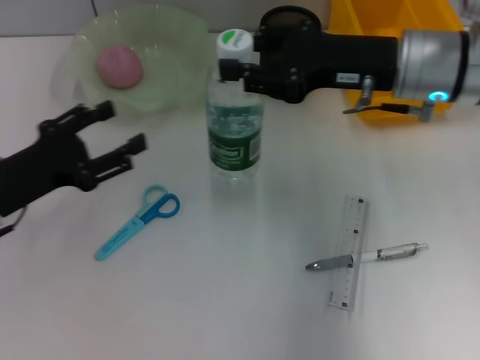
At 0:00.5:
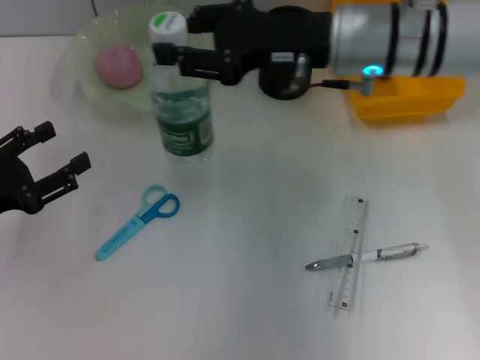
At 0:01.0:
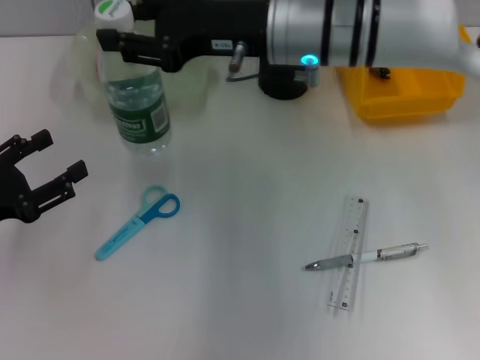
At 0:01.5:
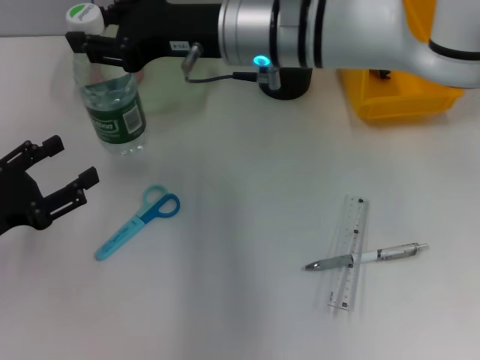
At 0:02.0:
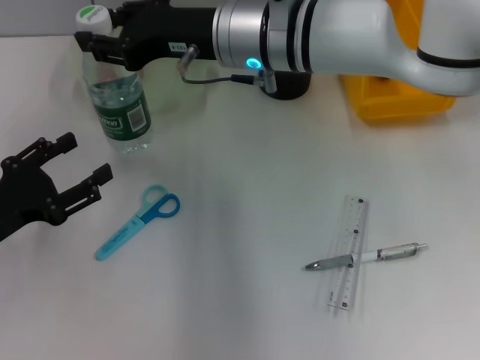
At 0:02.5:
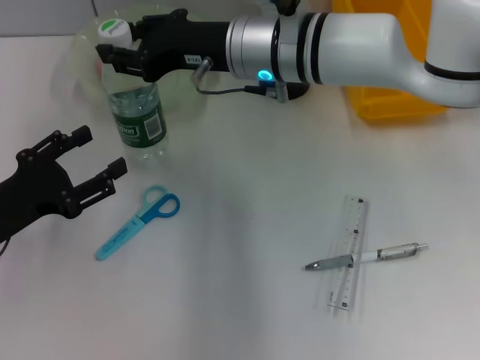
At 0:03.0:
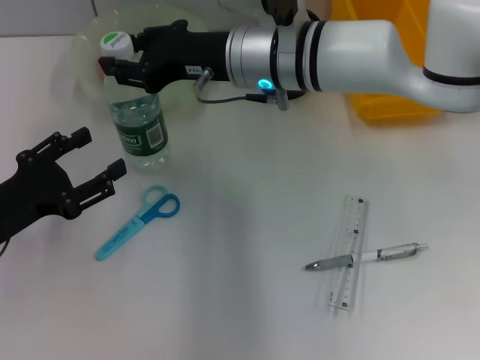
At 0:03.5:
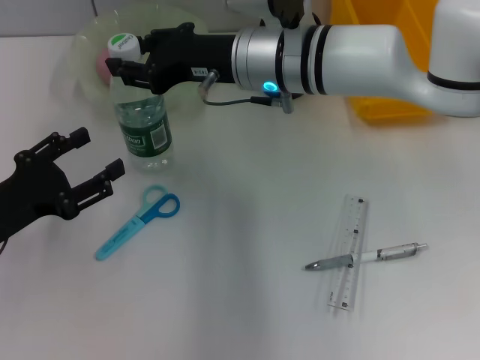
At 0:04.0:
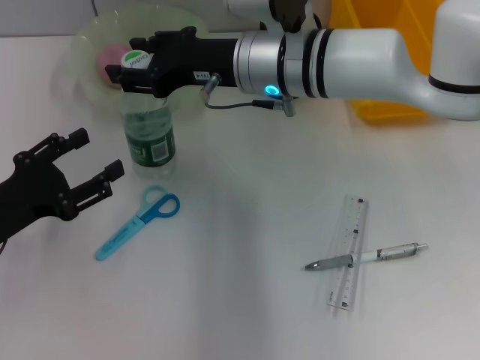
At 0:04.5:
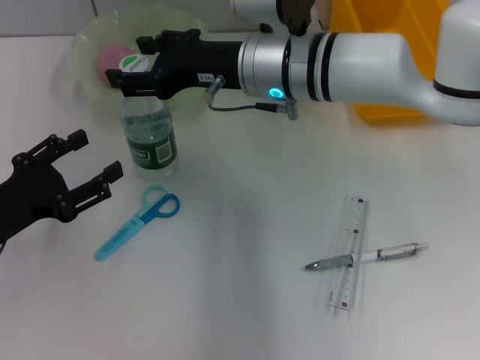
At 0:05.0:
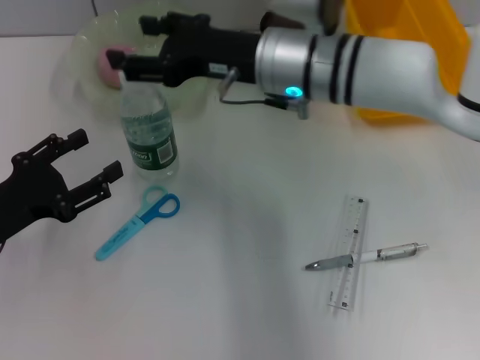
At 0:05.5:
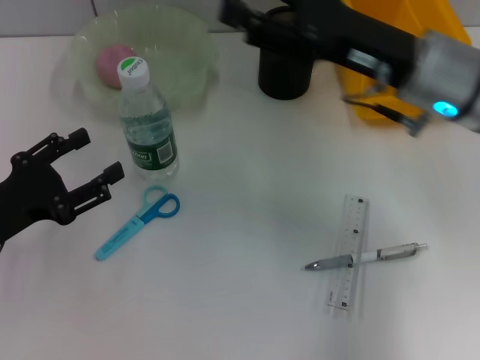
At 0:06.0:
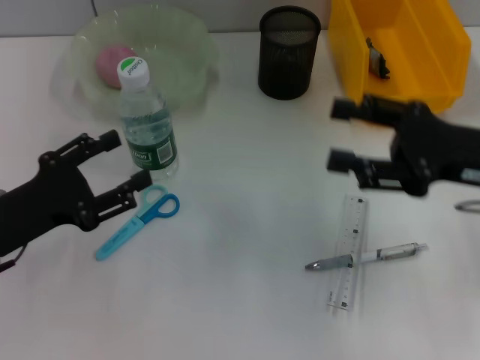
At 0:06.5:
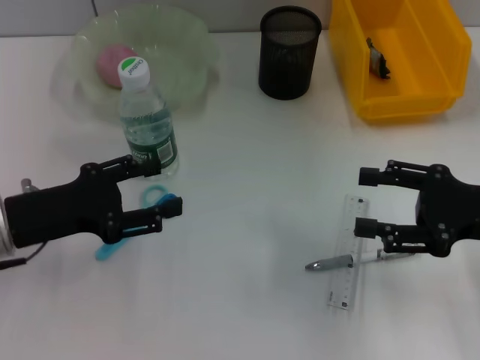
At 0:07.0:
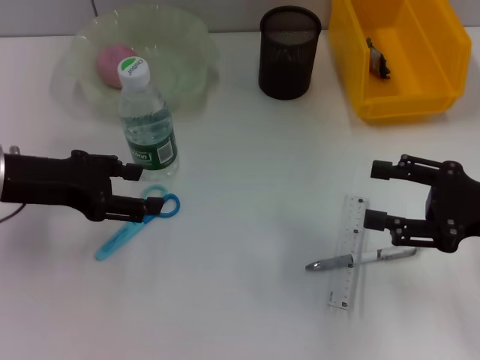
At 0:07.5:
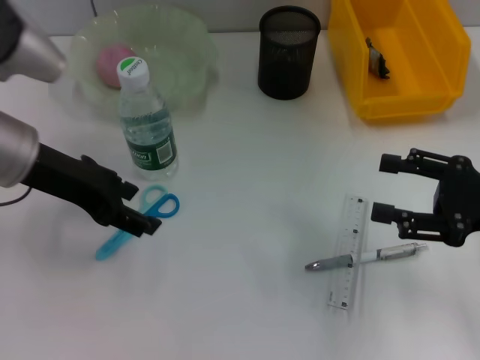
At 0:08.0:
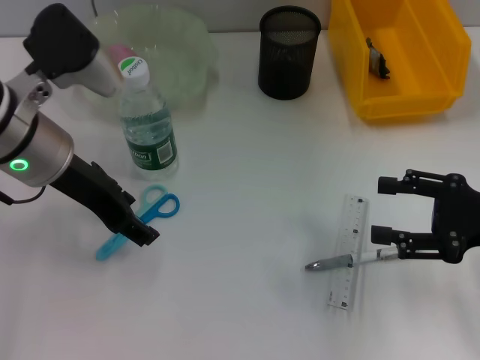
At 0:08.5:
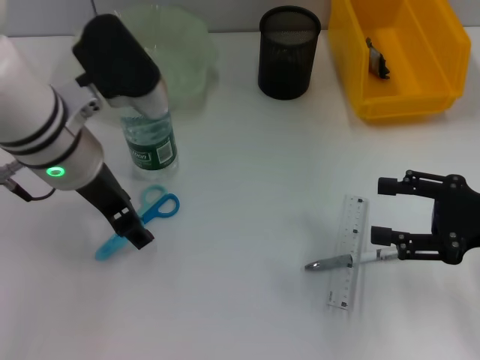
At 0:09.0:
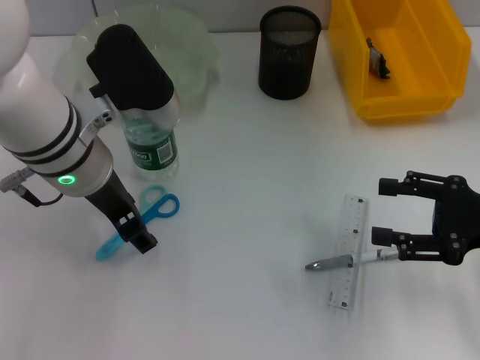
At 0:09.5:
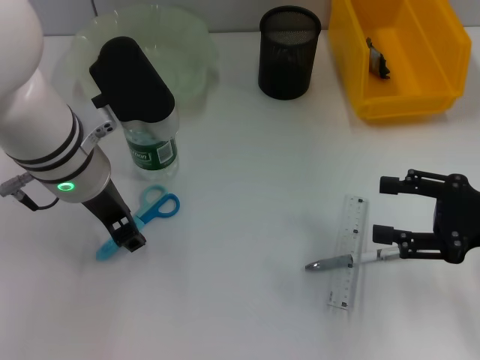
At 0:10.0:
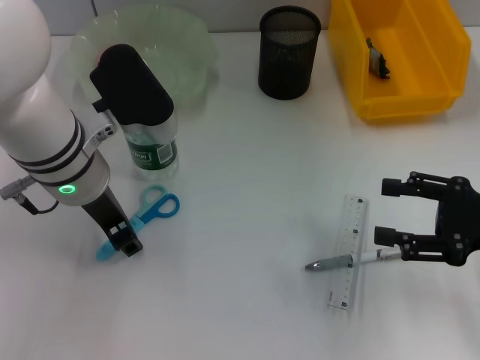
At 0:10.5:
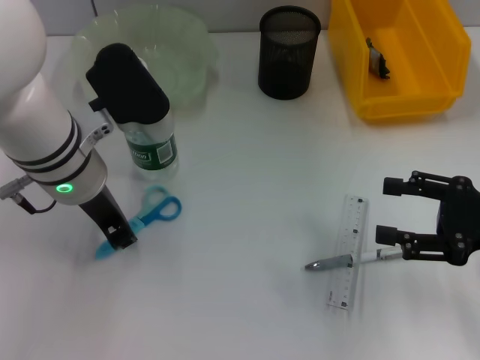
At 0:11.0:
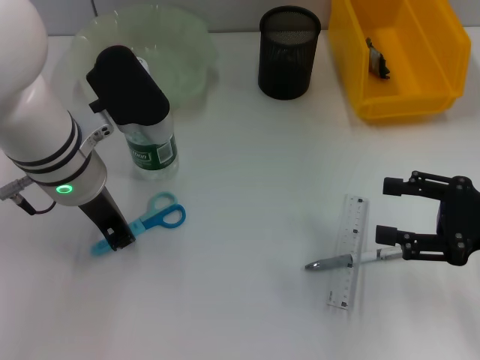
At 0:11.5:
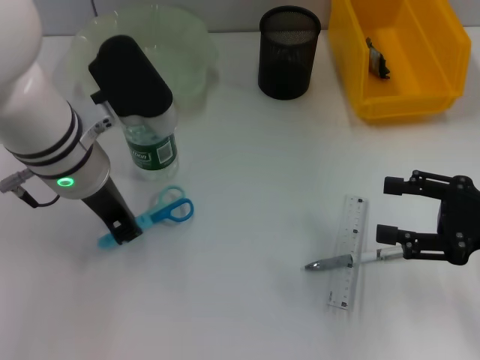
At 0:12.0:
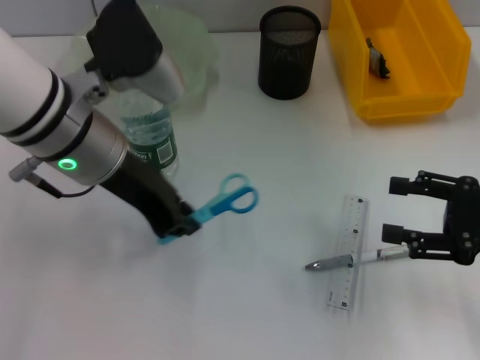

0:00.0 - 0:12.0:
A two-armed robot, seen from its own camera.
Step, 0:00.0 - 0:04.5: Place the water bottle on the table with the right hand.
Step, 0:05.0 - 0:11.0: Grab the blue scissors with the left hand.
0:00.0 - 0:02.0: The left gripper changes place by about 5 cm; the right gripper heads to the left, covering roughly 15 cm.
0:04.0 - 0:06.0: The right gripper moves to the right and backward, approximately 25 cm, and opens up.
0:06.0 - 0:08.0: The left gripper goes approximately 15 cm upward, forward and to the right. The right gripper ends up some 5 cm from where it was.
0:08.0 - 0:10.0: The grippers make only small movements.
0:10.0 - 0:12.0: The left gripper closes.

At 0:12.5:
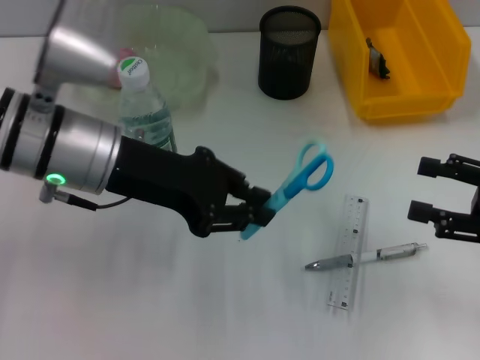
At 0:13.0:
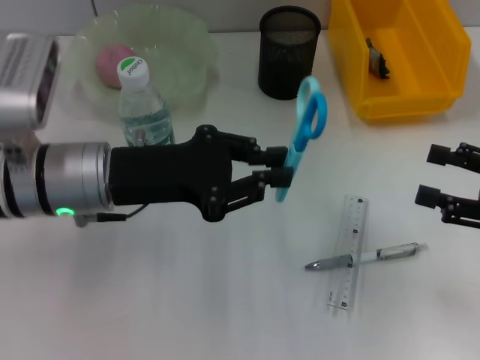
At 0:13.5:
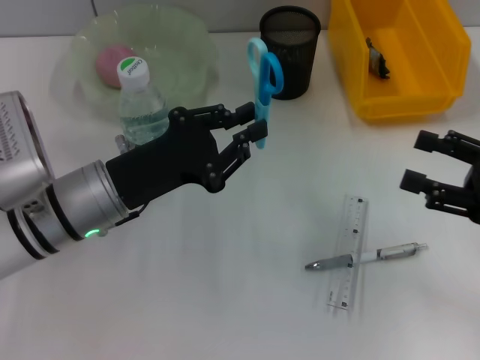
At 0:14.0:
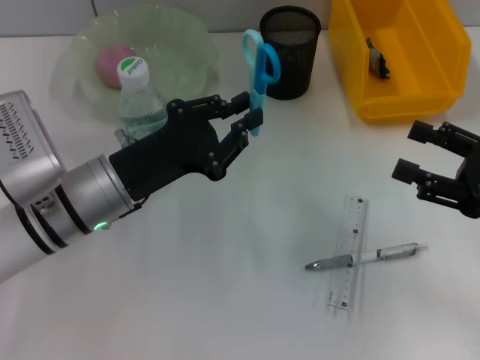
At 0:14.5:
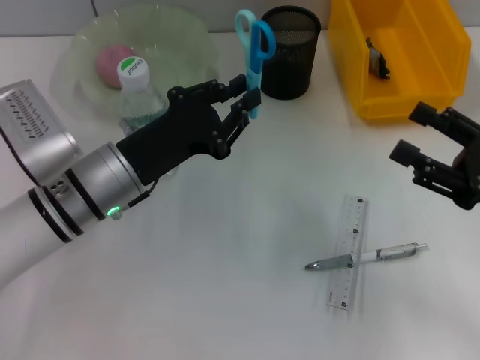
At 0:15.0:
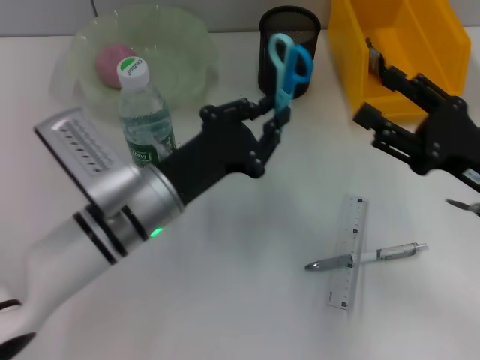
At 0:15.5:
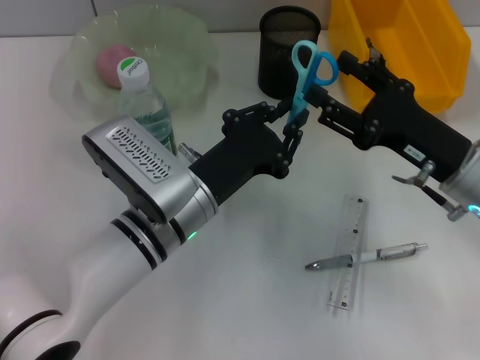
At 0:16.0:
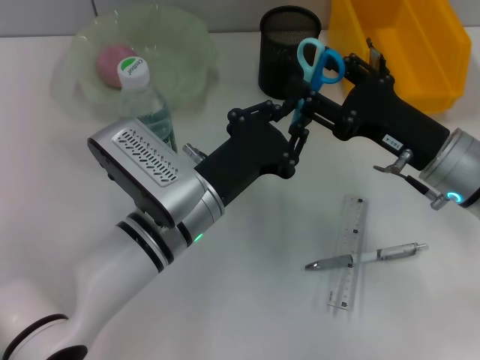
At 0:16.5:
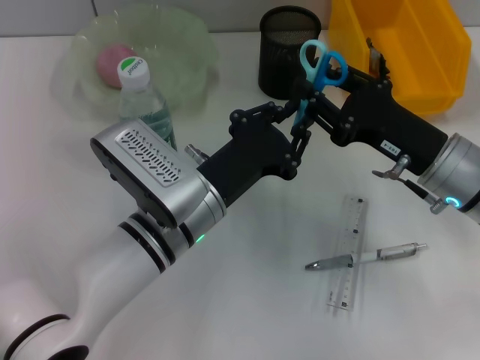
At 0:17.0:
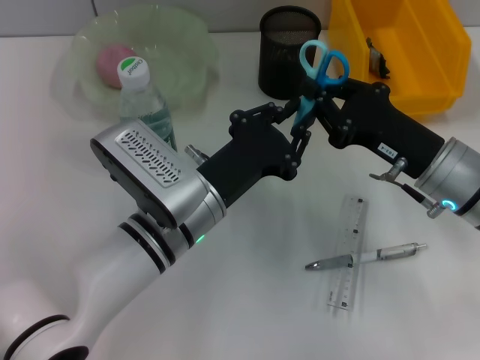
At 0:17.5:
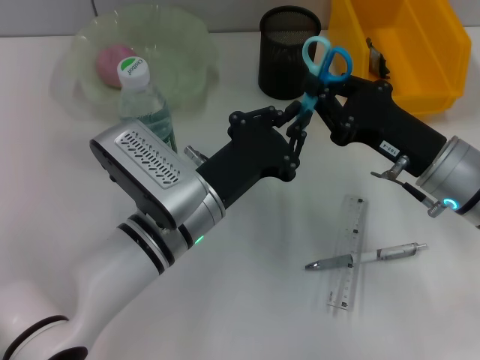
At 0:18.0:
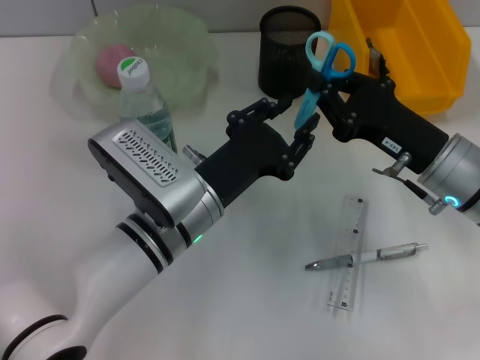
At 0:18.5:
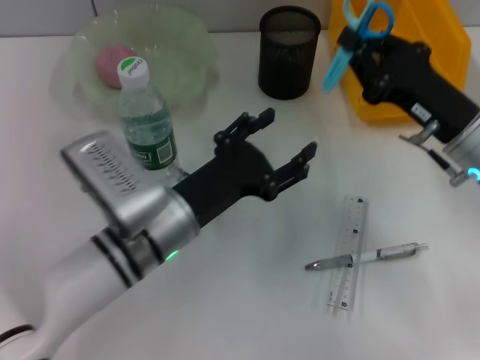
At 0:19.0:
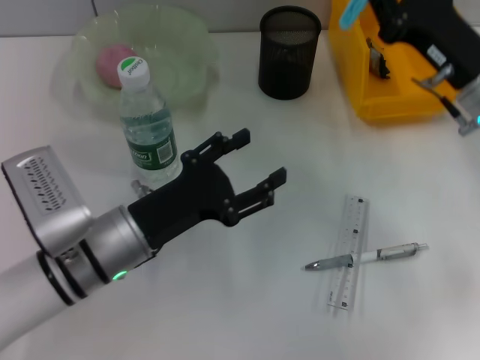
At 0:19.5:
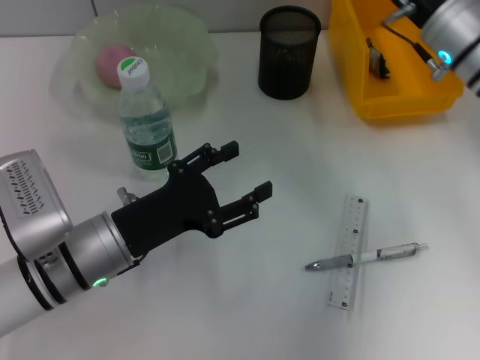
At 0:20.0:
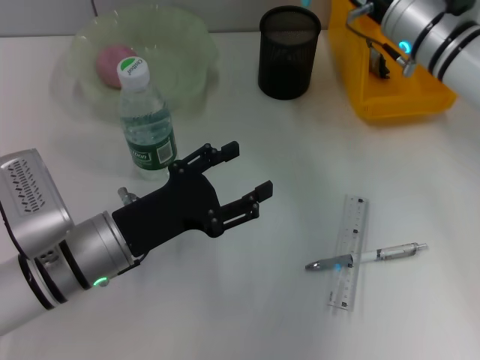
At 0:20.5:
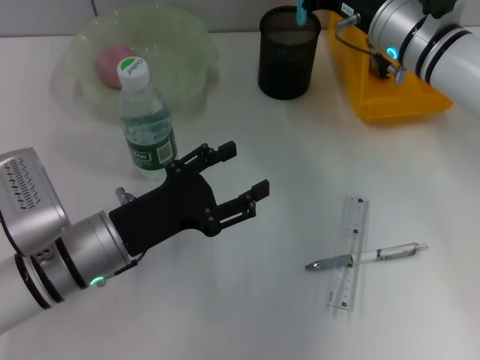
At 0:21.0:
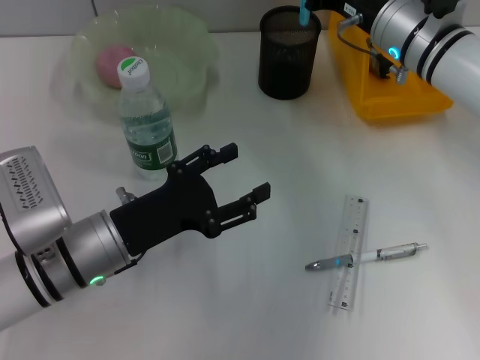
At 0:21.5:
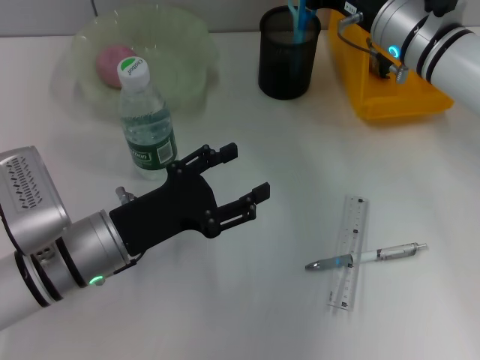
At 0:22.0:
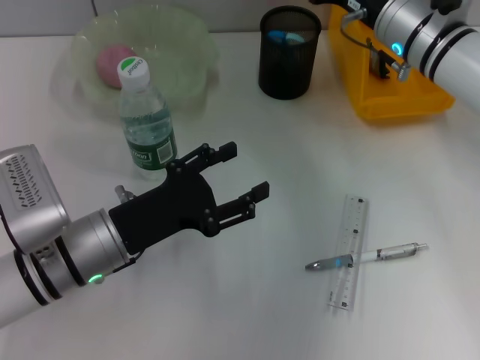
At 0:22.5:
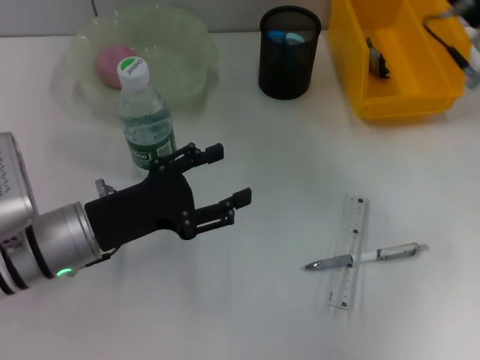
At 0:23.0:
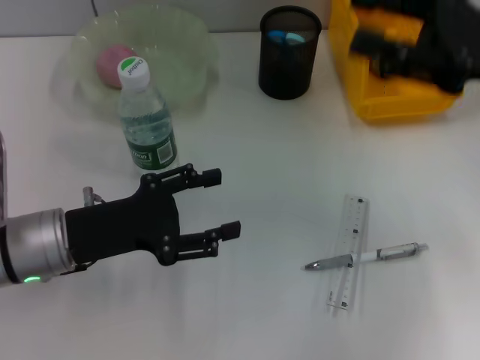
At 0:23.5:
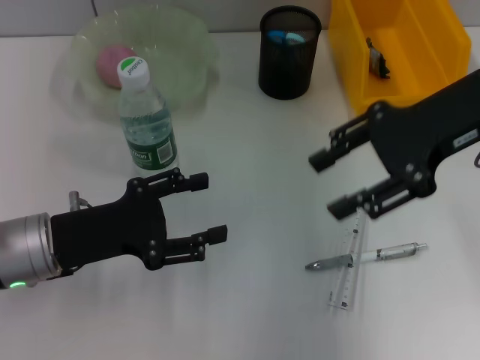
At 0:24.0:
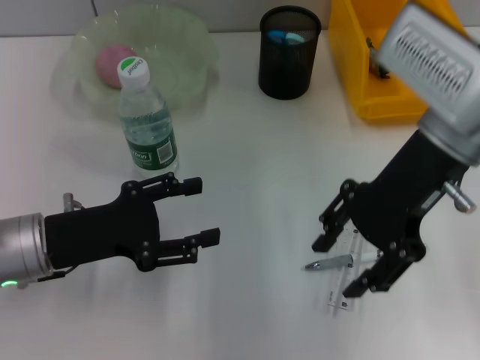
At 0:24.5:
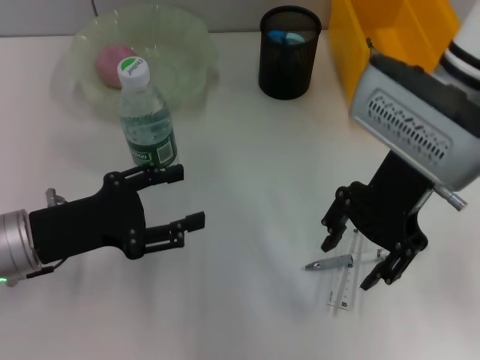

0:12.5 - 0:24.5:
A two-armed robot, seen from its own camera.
Step, 0:12.5 - 0:17.0: Pass the blue scissors from the left hand to the right hand.
Step, 0:18.0 - 0:21.5: Place the blue scissors into the pen holder with the right hand.
0:12.5 - 0:14.5: The left gripper travels downward by about 10 cm.
0:14.5 - 0:16.5: The left gripper shifts roughly 10 cm to the right. Meanwhile the right gripper heads to the left and forward, covering about 10 cm, and closes up.
0:16.5 - 0:18.5: The right gripper closes up. The left gripper opens.
0:18.5 - 0:20.5: The right gripper heads forward and to the left, covering roughly 15 cm. Meanwhile the left gripper heads to the left, covering about 5 cm.
0:20.5 - 0:22.5: The right gripper goes about 10 cm to the right and backward, and opens up.
0:22.5 - 0:24.5: The left gripper shifts roughly 5 cm to the left, while the right gripper travels to the left by about 10 cm.

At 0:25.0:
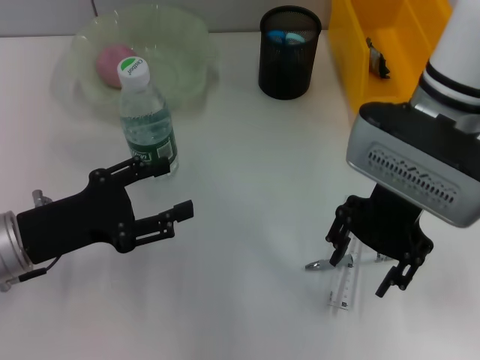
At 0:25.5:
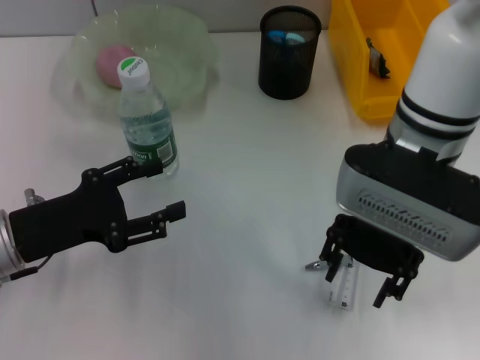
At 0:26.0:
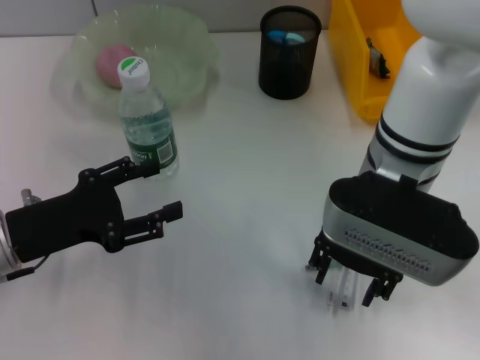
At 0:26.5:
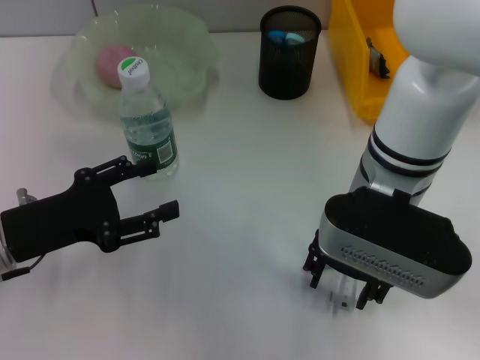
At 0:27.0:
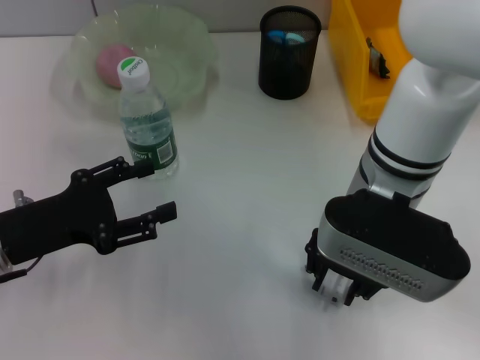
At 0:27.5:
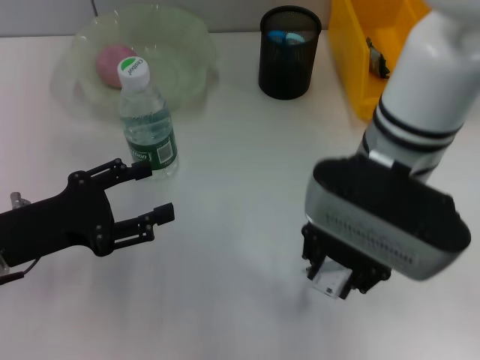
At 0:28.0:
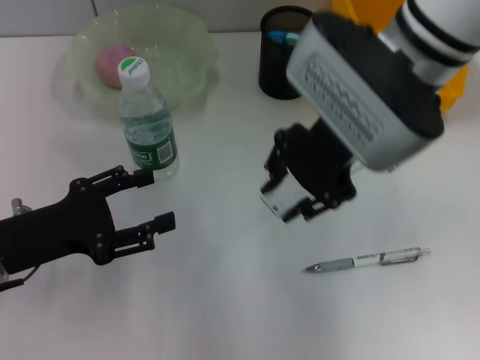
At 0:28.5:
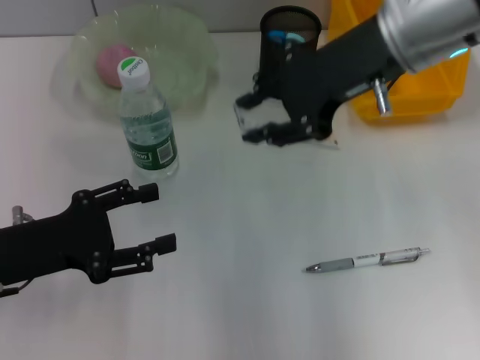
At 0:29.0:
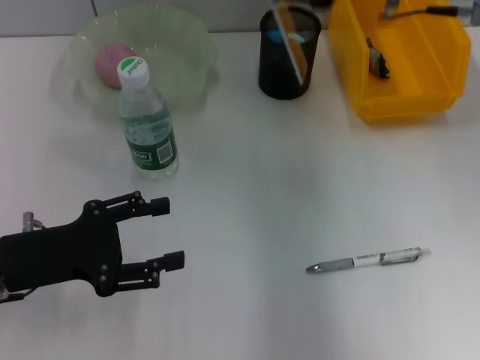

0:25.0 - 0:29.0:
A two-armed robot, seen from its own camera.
Step, 0:25.0 - 0:27.0: Grab the ruler with the right hand.
0:25.0 - 0:27.0: The right gripper moves some 5 cm.
0:27.0 - 0:29.0: The right gripper travels upward, forward and to the right by approximately 15 cm.
